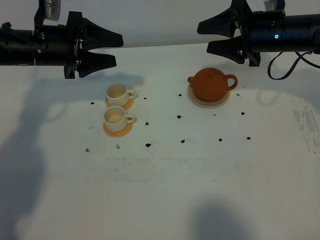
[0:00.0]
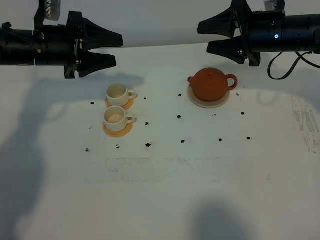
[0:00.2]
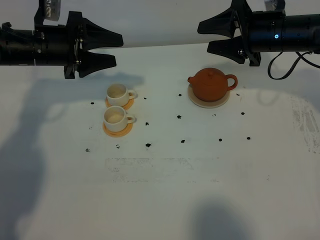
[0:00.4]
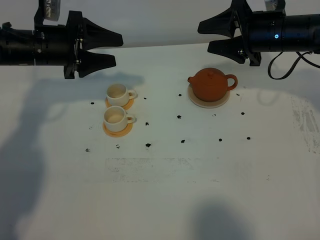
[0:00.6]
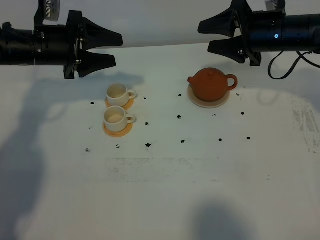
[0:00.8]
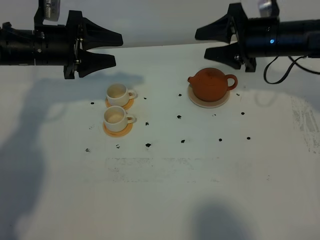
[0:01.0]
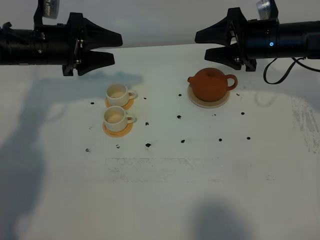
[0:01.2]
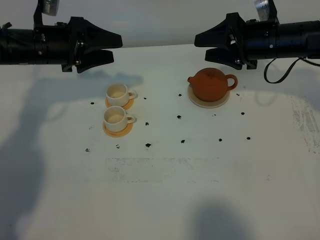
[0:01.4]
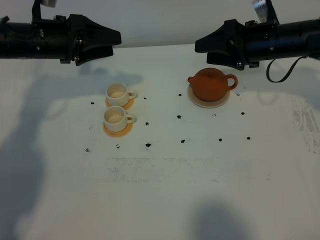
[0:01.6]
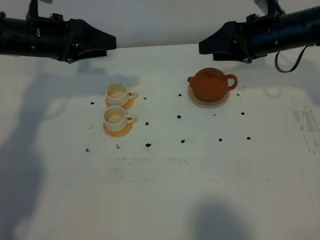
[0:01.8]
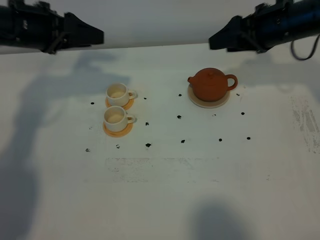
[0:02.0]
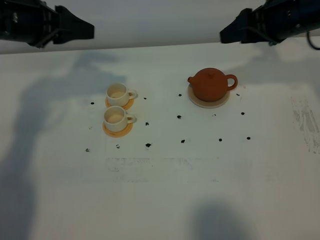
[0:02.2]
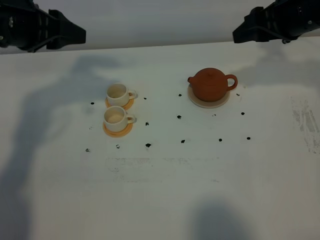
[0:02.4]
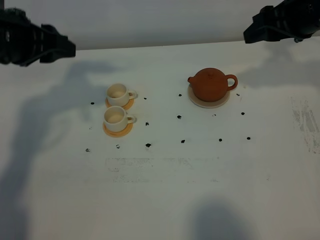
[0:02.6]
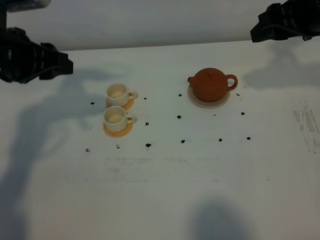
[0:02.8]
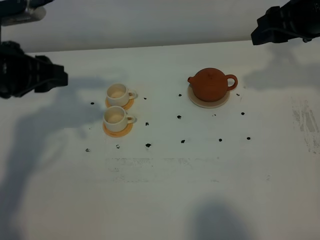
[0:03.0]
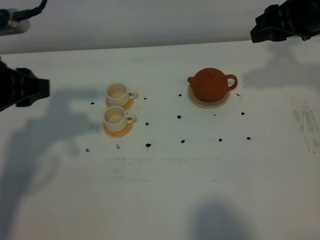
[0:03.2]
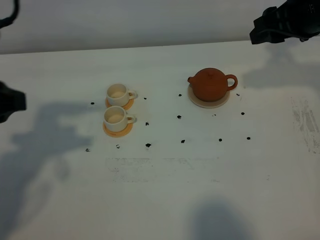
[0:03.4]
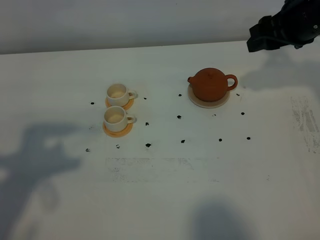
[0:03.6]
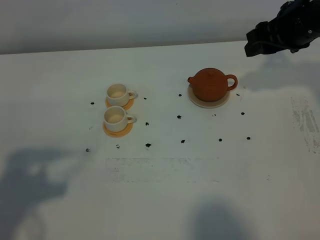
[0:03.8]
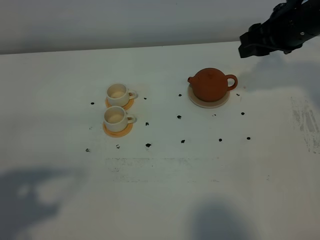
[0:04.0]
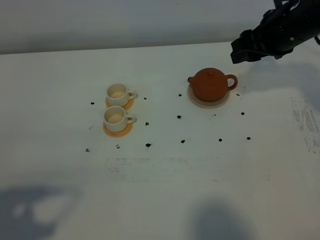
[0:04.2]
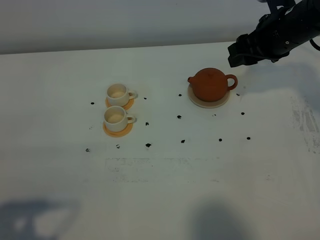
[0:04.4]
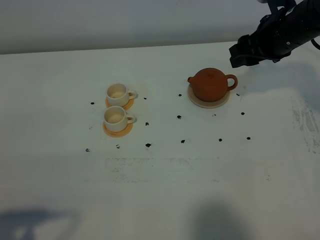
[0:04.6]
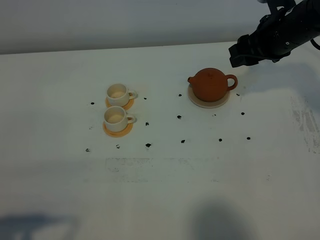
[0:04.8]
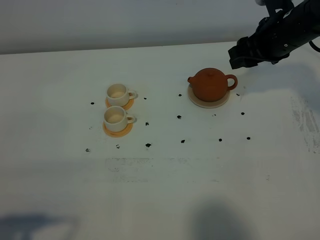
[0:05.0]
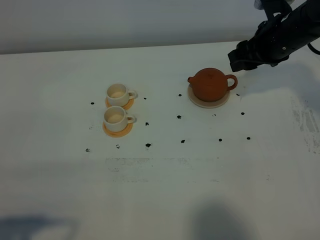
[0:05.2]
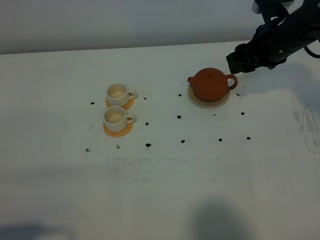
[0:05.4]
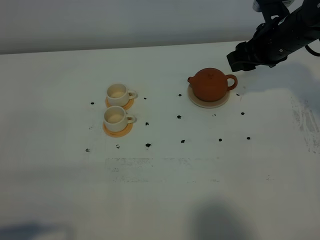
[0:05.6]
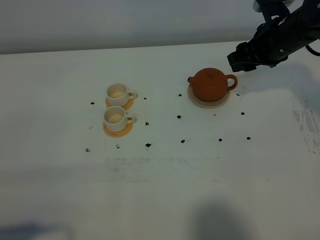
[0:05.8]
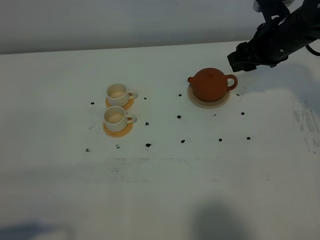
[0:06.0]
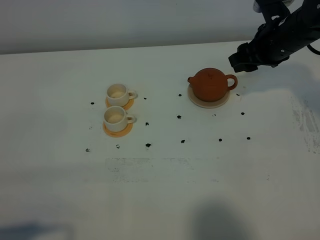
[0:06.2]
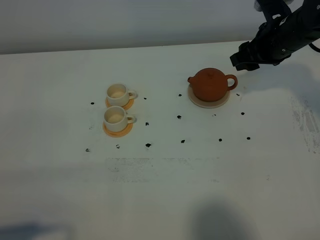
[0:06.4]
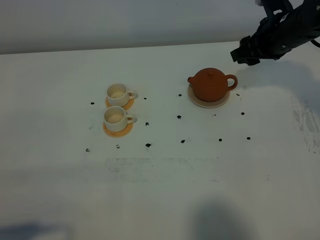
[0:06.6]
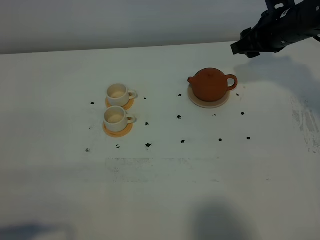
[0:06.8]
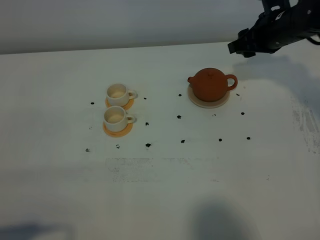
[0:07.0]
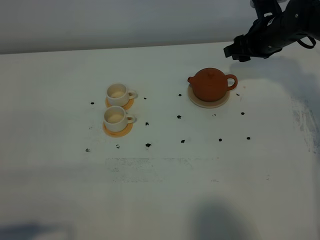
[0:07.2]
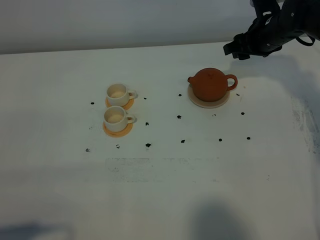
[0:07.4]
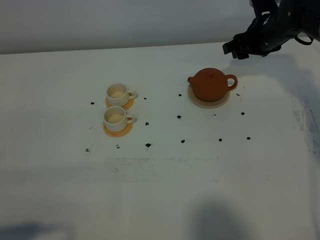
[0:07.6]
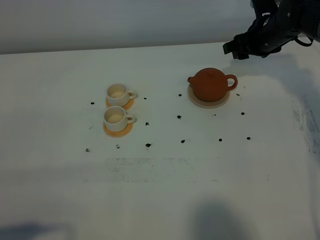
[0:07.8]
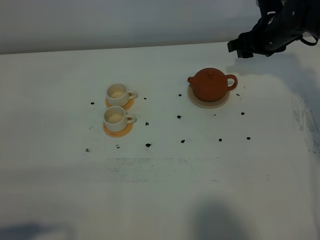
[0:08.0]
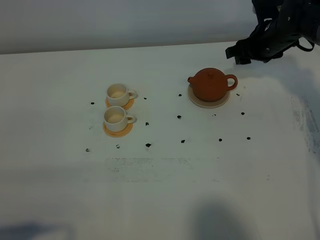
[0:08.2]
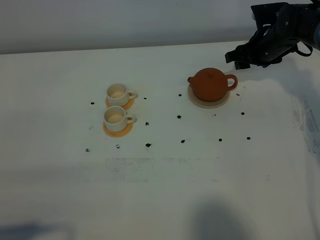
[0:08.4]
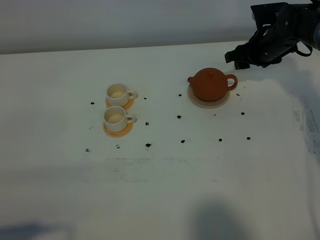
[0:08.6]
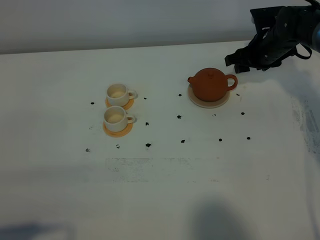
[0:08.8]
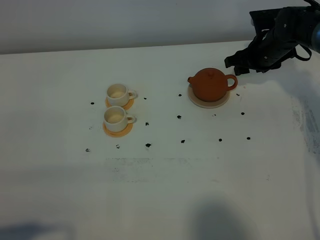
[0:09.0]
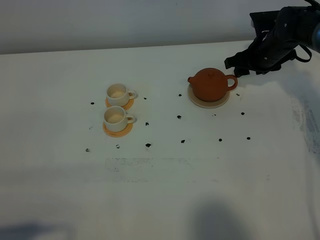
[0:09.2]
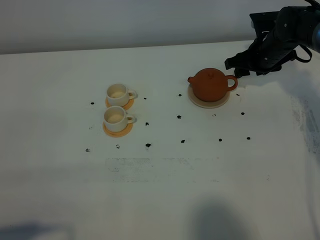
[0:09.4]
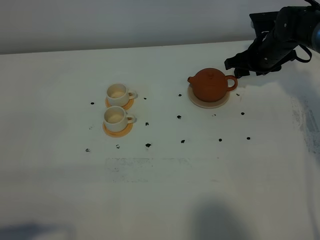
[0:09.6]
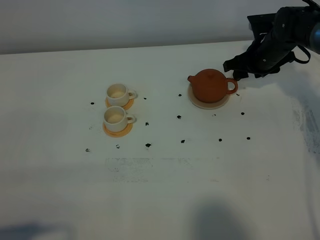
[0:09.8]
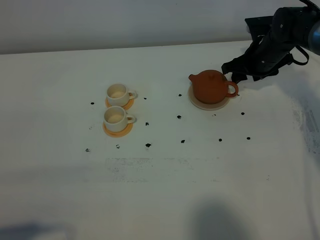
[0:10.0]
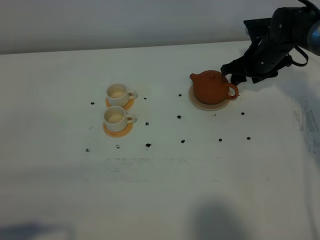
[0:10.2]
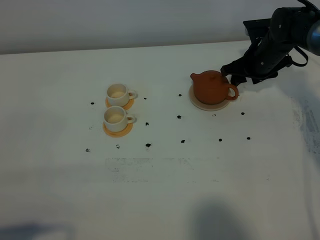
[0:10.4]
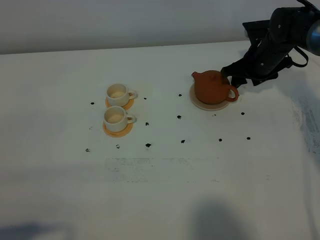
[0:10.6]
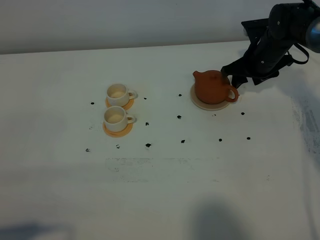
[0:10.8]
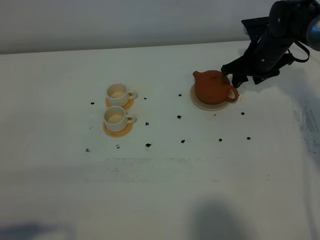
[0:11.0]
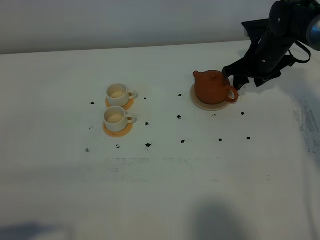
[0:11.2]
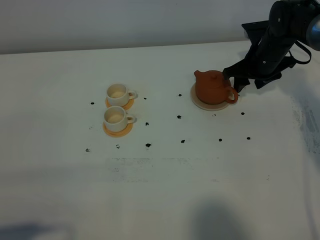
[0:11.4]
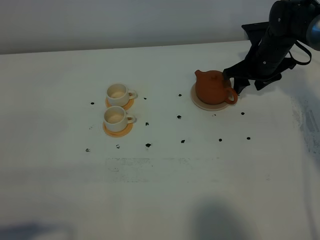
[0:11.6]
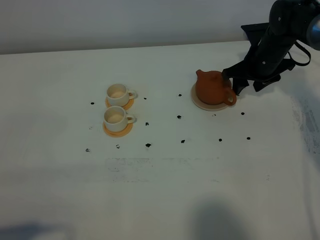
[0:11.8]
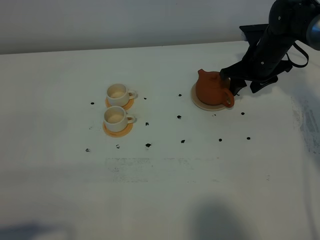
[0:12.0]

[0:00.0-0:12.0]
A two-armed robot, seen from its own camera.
Task of the whole recording: grasp the brown teapot and pour the tea into the two white teacups one by one, put the brown teapot back in its original place.
0:00.0 to 0:01.6: There are only small adjustments of the grippers.
0:01.6 to 0:03.0: The right gripper goes approximately 10 cm upward and backward, while the left gripper travels backward and upward by some 15 cm.
0:03.0 to 0:04.4: The left gripper travels backward by about 25 cm. The right gripper is displaced downward by some 5 cm.
0:04.4 to 0:06.0: The grippers stay close to where they were, moving slightly.
0:06.0 to 0:07.6: The right gripper moves forward, roughly 5 cm.
0:07.6 to 0:10.4: The grippers move only a little.
0:10.4 to 0:12.0: There are only small adjustments of the grippers.

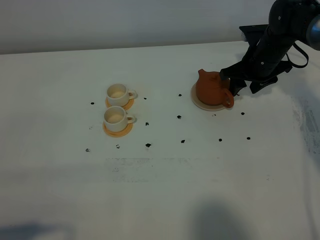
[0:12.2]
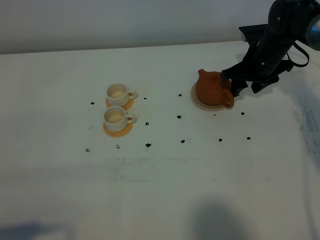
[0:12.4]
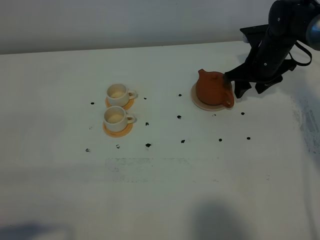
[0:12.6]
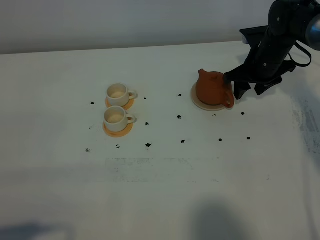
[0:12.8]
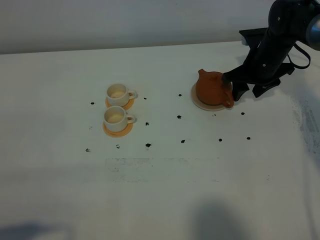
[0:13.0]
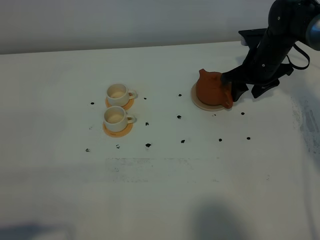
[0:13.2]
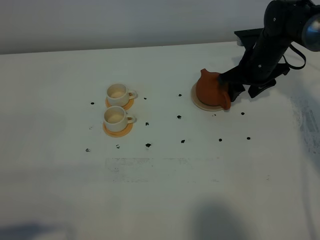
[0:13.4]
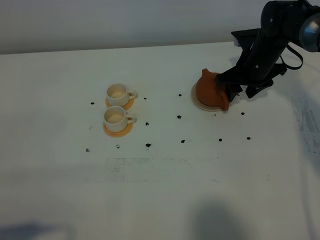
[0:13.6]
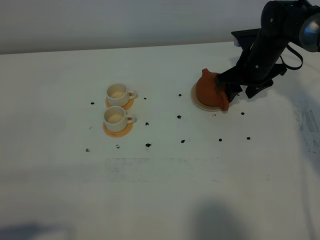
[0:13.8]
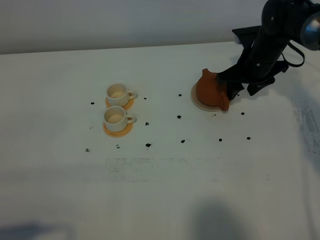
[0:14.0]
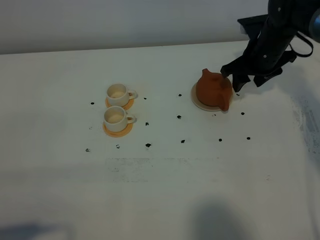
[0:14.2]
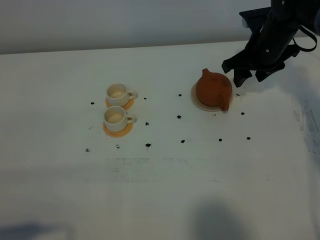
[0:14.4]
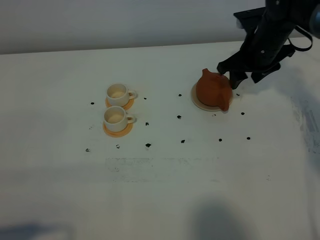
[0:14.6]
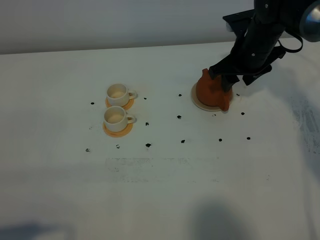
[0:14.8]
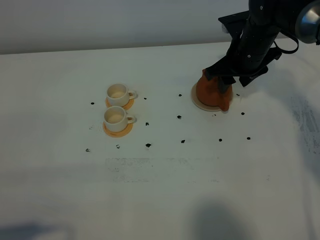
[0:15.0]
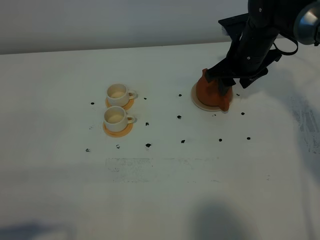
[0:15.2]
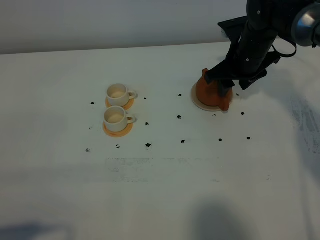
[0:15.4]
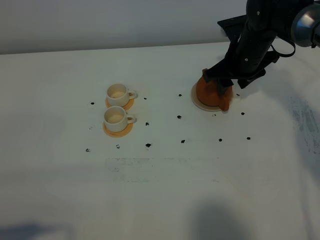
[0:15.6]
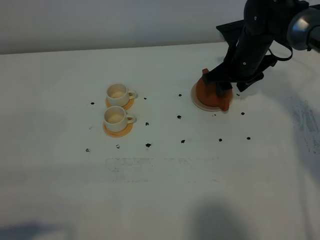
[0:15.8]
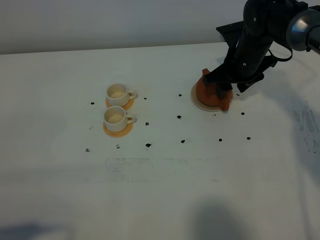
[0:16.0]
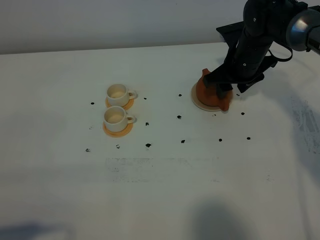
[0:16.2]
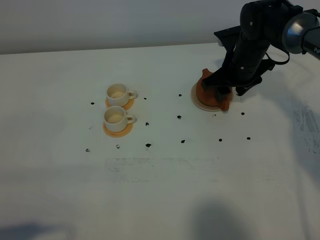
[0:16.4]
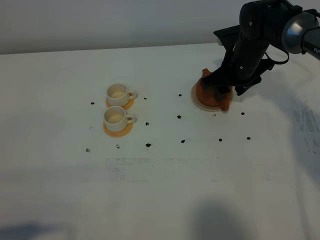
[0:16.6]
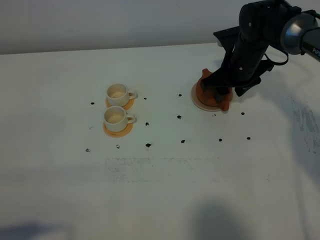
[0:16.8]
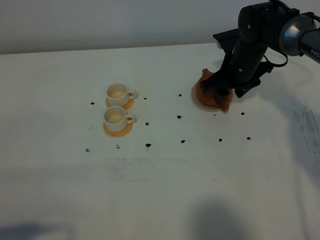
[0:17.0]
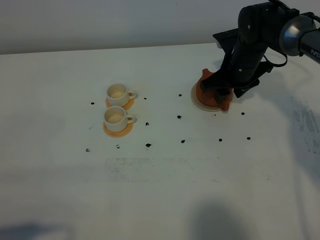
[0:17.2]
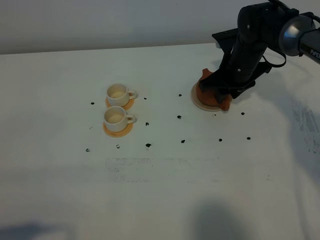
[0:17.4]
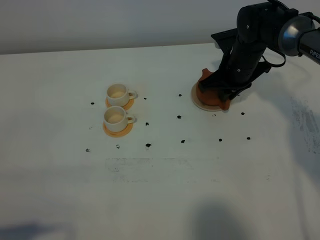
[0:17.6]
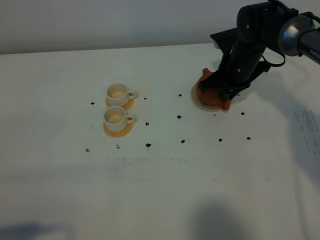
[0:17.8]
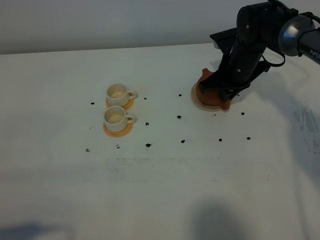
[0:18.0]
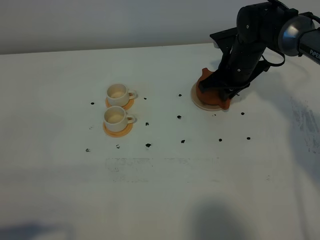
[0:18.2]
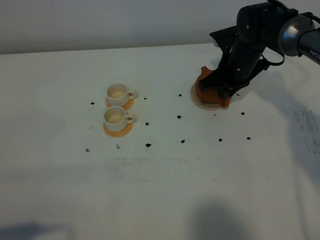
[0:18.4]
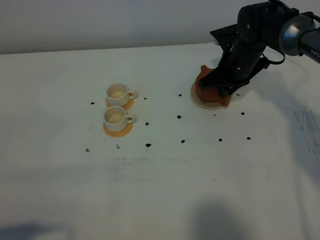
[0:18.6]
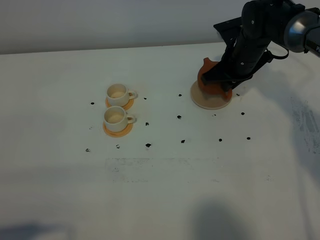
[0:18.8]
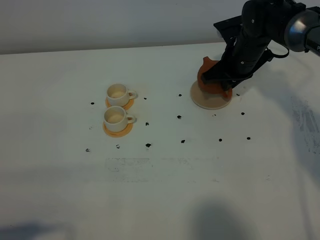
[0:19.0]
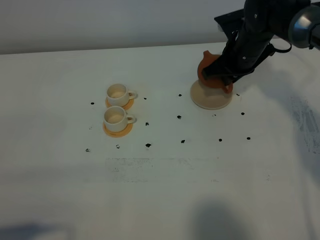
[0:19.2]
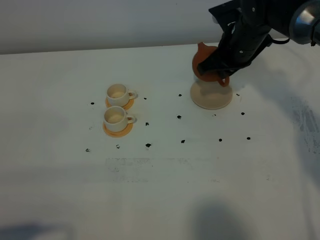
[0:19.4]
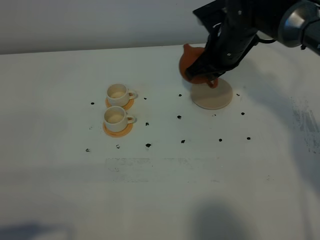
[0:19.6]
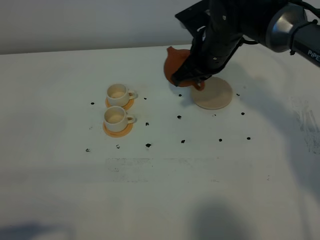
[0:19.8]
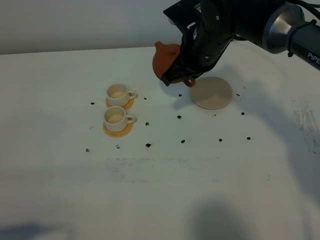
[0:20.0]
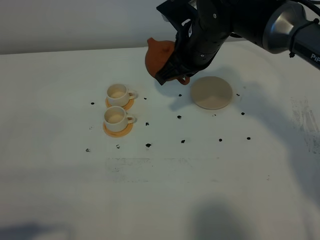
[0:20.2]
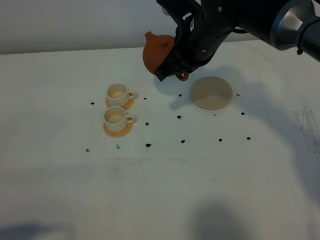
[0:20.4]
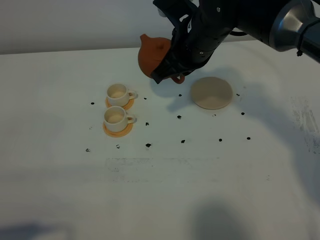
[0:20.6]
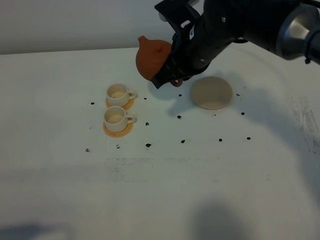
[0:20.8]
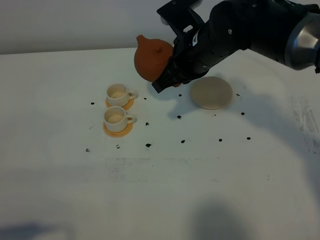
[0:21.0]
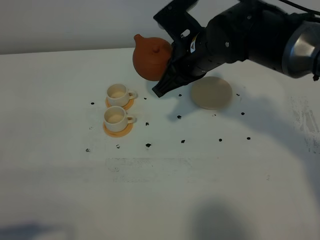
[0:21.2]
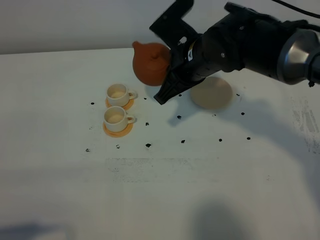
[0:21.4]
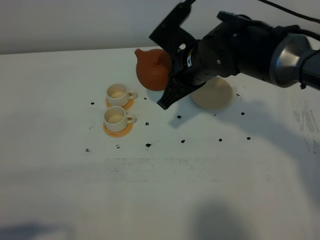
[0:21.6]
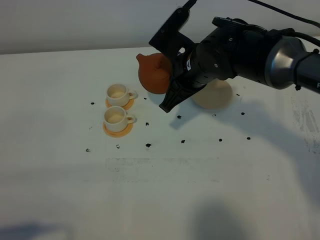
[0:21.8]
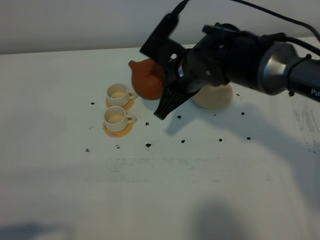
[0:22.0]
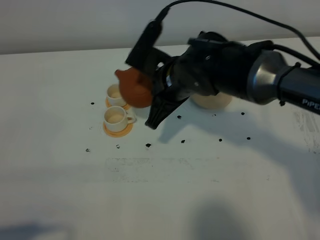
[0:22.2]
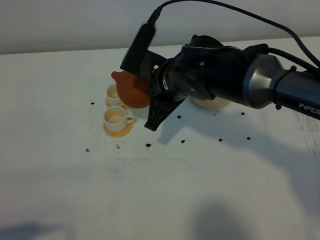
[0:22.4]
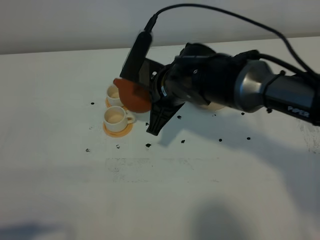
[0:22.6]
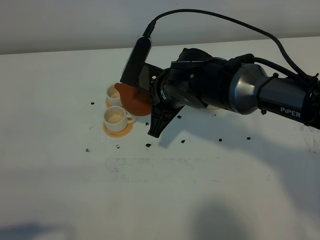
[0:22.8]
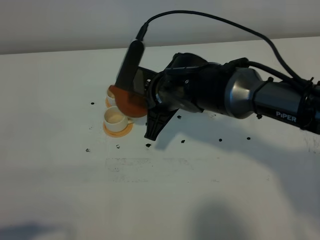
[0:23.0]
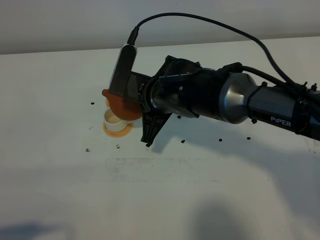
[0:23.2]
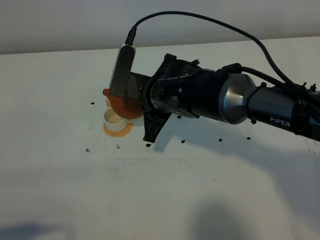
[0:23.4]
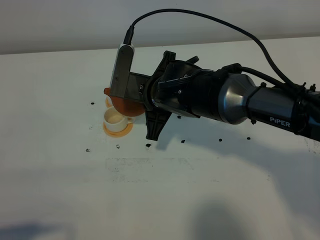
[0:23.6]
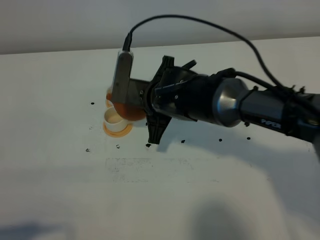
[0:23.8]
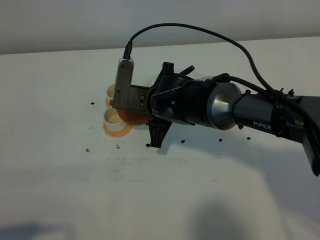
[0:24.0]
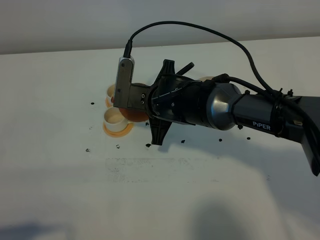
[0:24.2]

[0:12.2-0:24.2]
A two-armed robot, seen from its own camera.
Task of the whole recording: grasp the brown teapot and pour the tea into the two white teacups one by one, put the brown teapot back in its original place.
Step, 0:12.2 to 0:18.8: Pick up the teapot with the right gripper.
0:12.2 to 0:13.8: The grippers stay close to where they were, moving slightly.
0:13.8 to 0:15.2: The right gripper changes place by some 5 cm.
0:15.2 to 0:16.6: There are only small adjustments of the grippers.
0:16.6 to 0:18.2: The right gripper closes.
0:18.2 to 0:19.8: The right gripper is displaced upward and to the left by about 10 cm.
0:19.8 to 0:21.2: The right gripper travels backward by roughly 5 cm.
0:21.2 to 0:22.6: The right gripper changes place by approximately 5 cm.
0:22.6 to 0:24.2: The grippers make only small movements.
